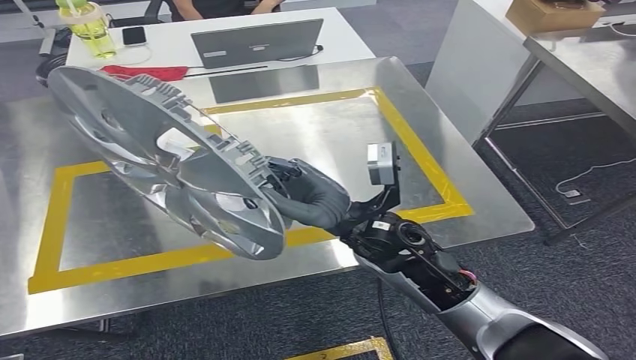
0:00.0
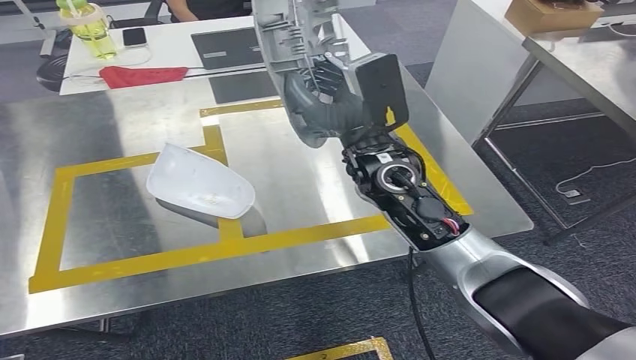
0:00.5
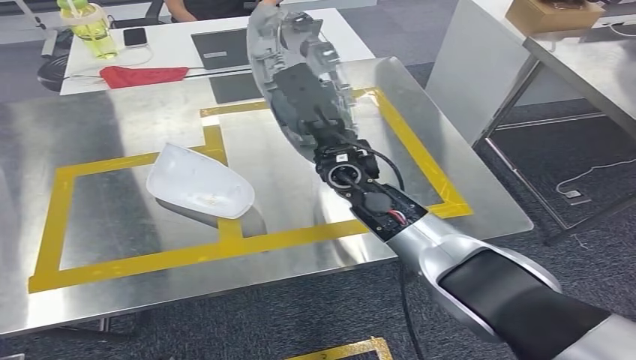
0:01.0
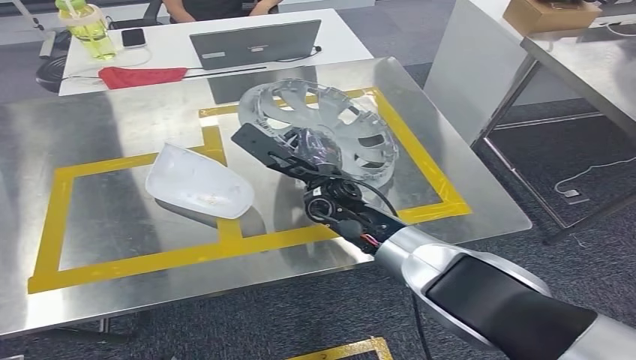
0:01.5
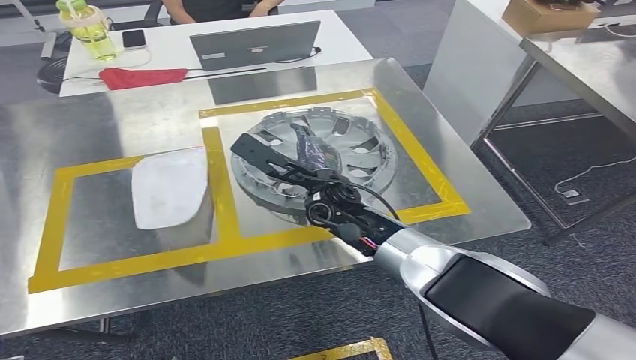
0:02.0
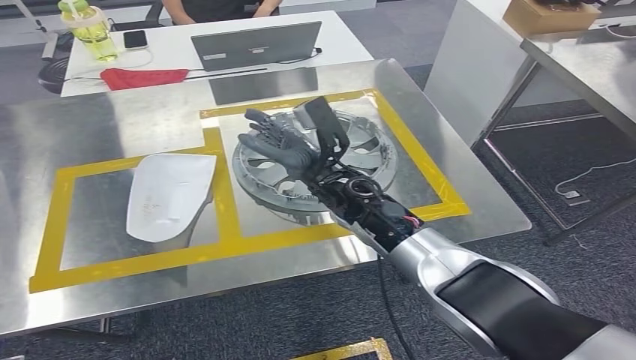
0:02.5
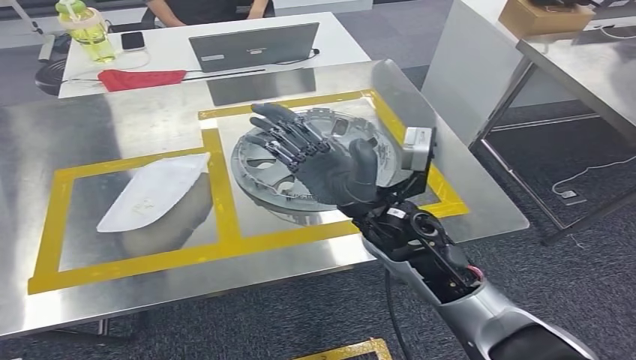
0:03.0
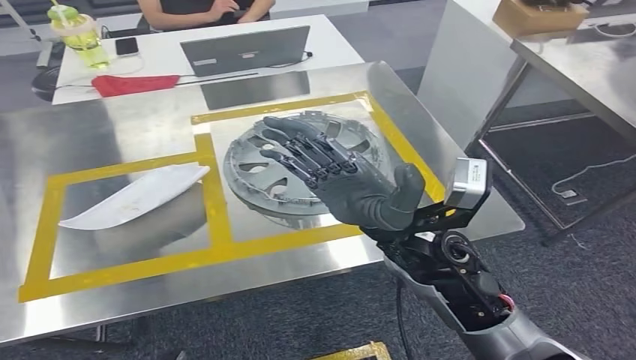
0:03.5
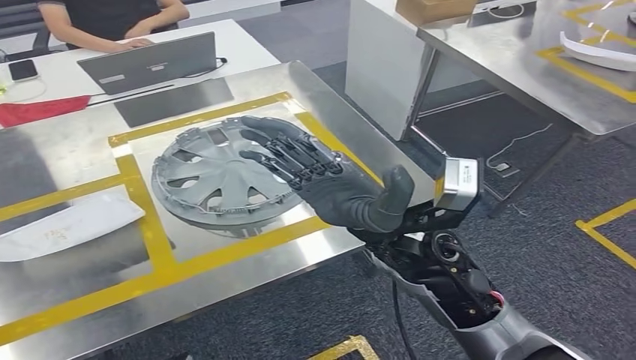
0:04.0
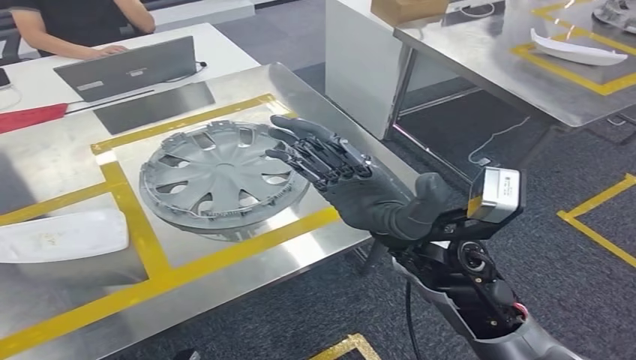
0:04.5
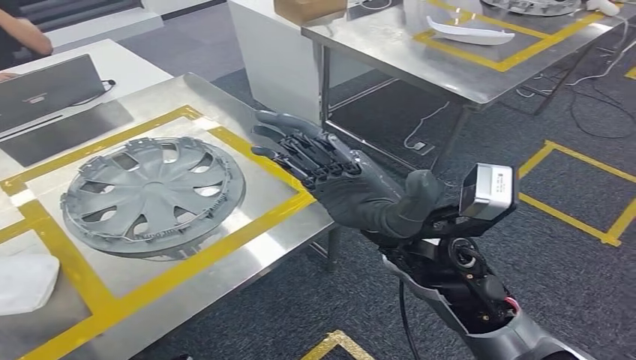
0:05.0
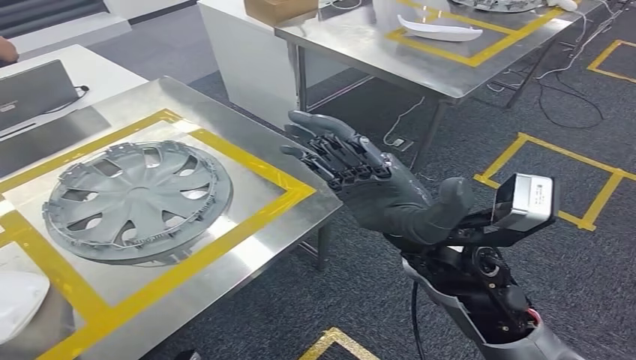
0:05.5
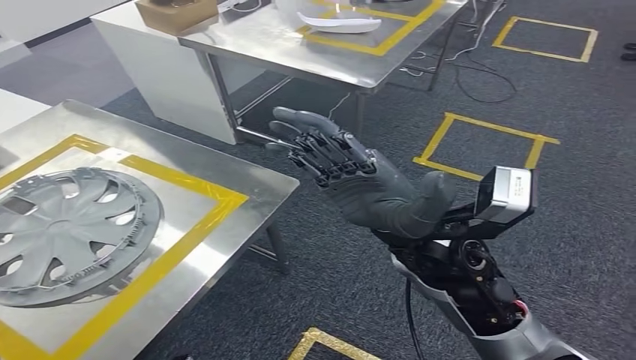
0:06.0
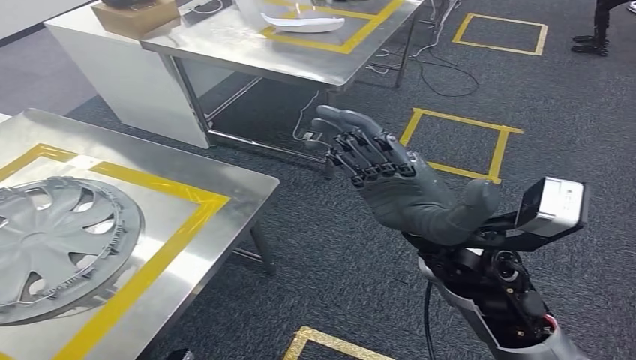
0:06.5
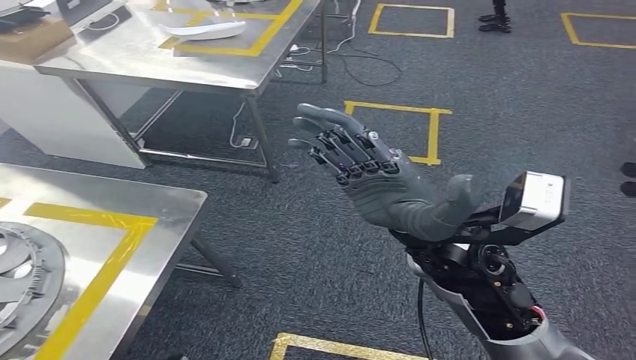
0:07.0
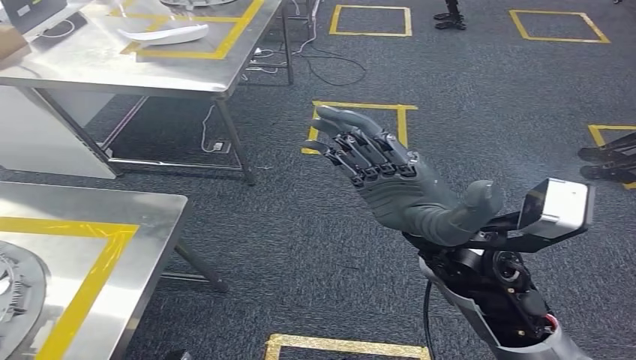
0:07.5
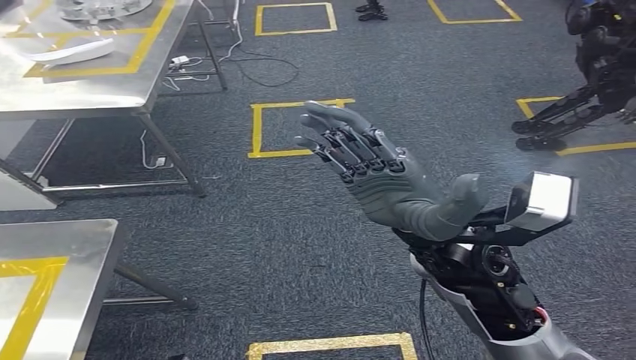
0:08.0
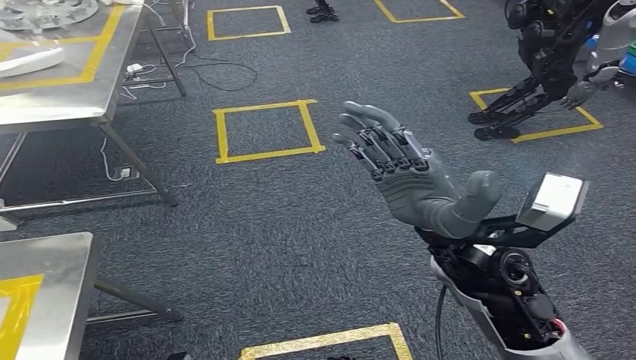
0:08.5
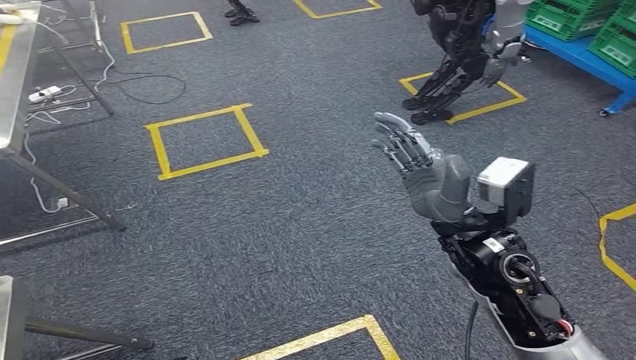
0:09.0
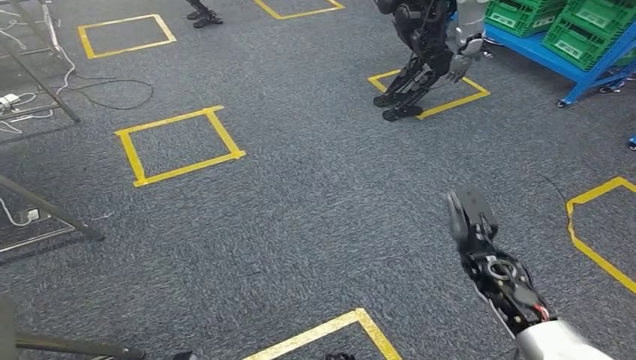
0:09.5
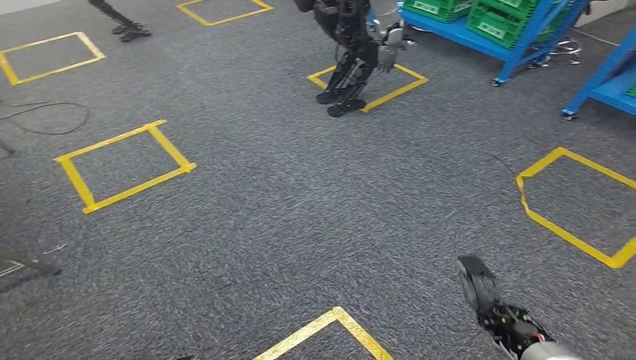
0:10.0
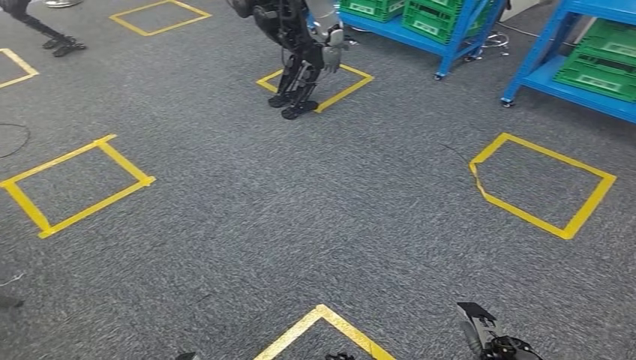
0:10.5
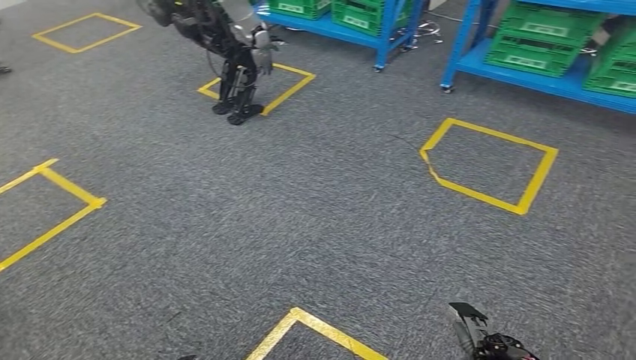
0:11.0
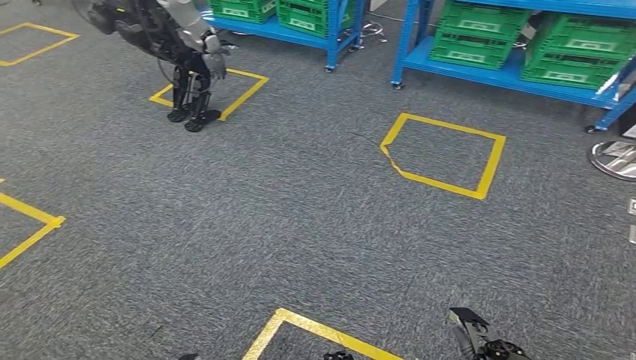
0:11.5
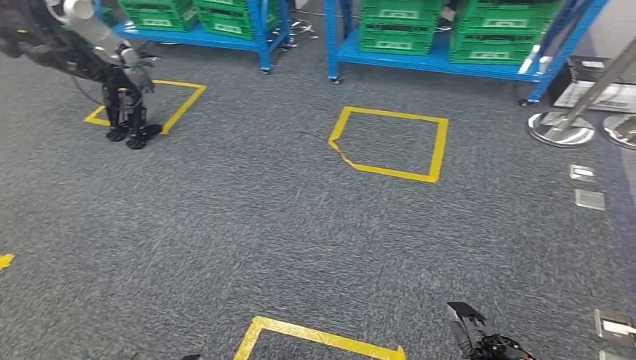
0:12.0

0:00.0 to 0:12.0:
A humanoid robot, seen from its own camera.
Step, 0:00.0 to 0:04.0: Insert the small component into the corresponding slot on the workbench.

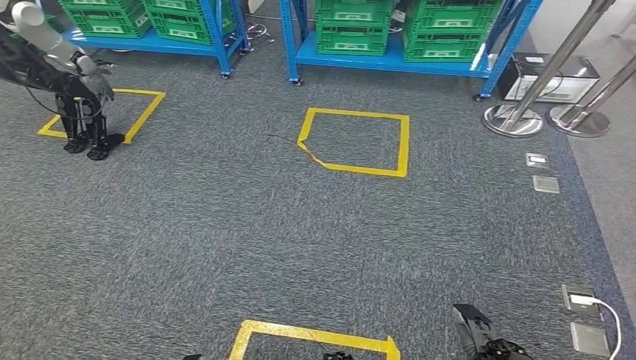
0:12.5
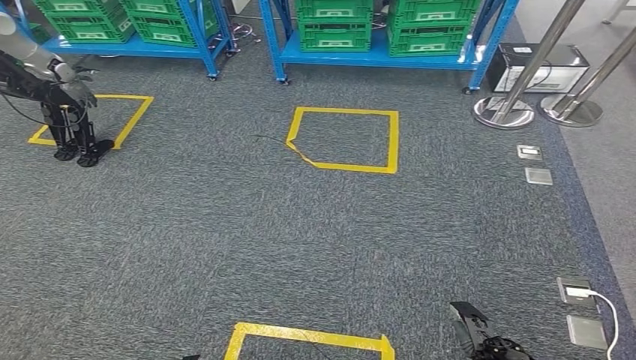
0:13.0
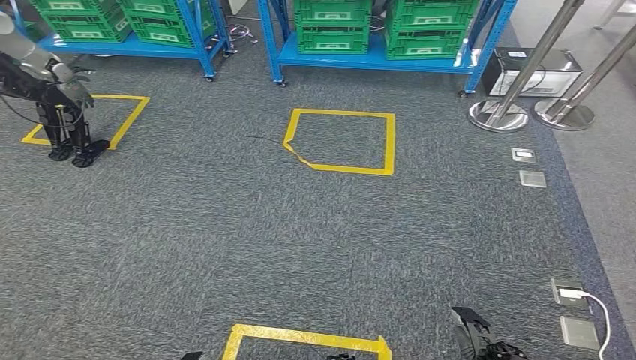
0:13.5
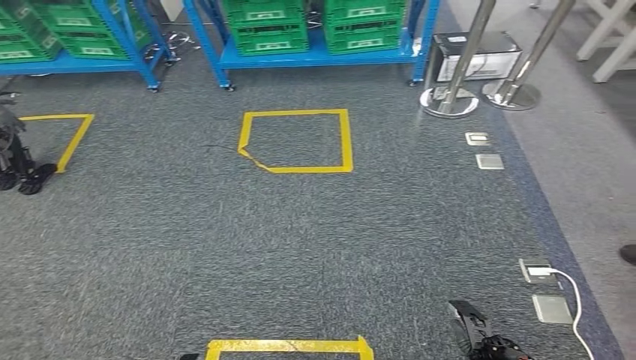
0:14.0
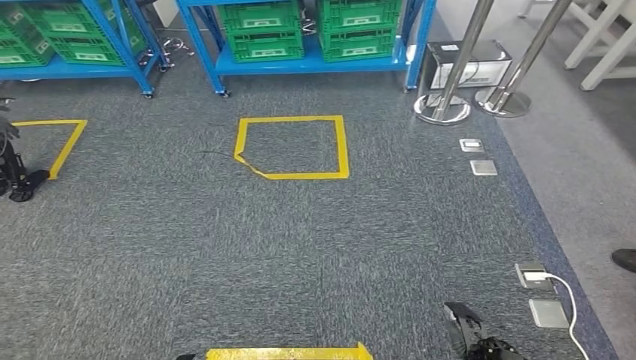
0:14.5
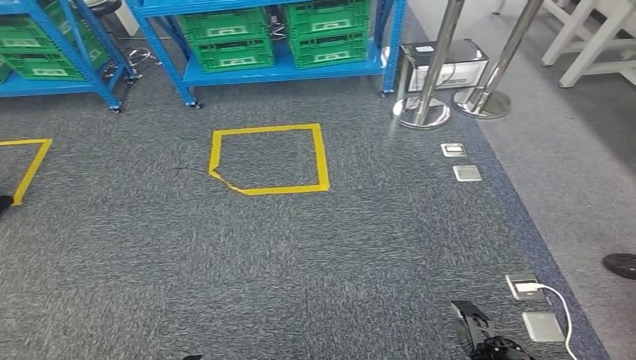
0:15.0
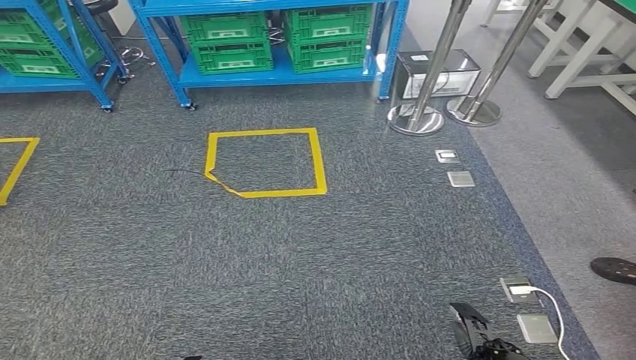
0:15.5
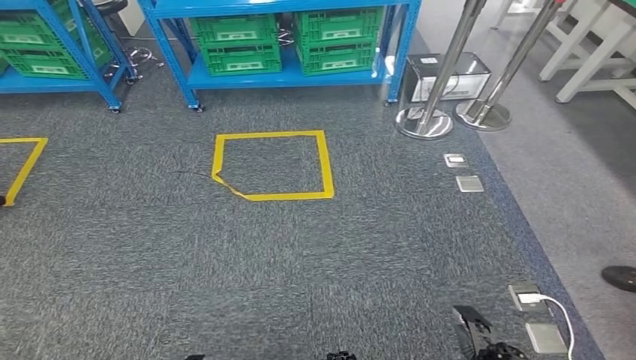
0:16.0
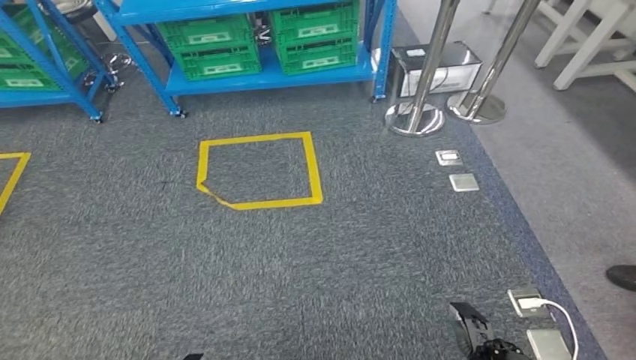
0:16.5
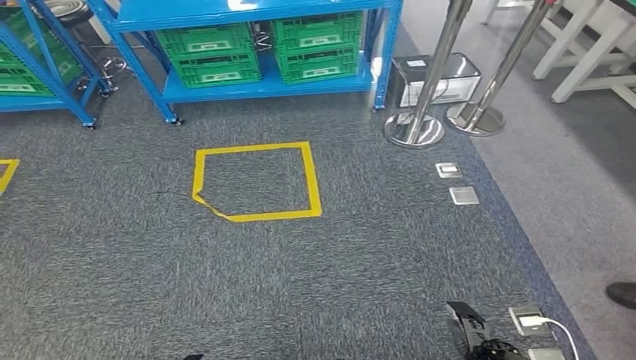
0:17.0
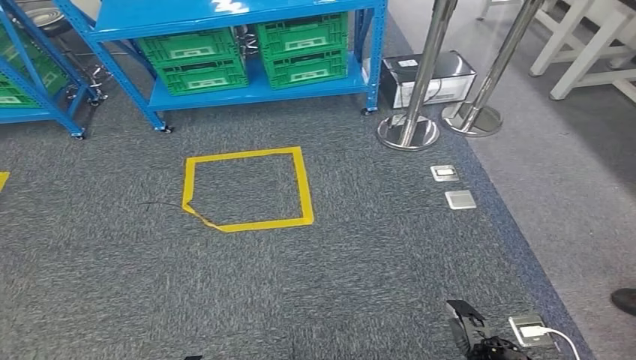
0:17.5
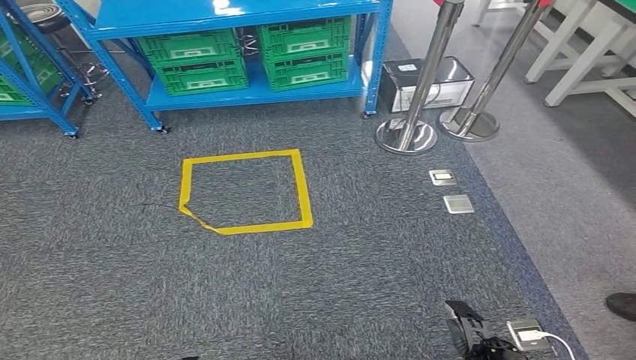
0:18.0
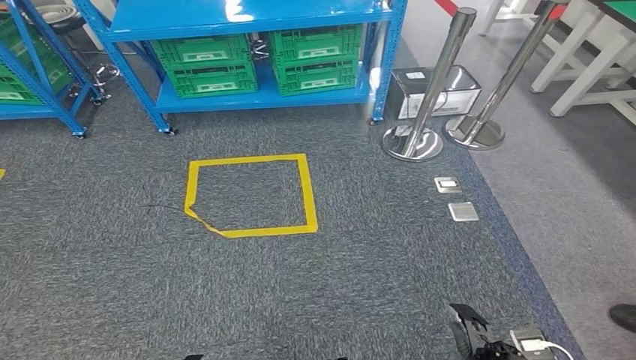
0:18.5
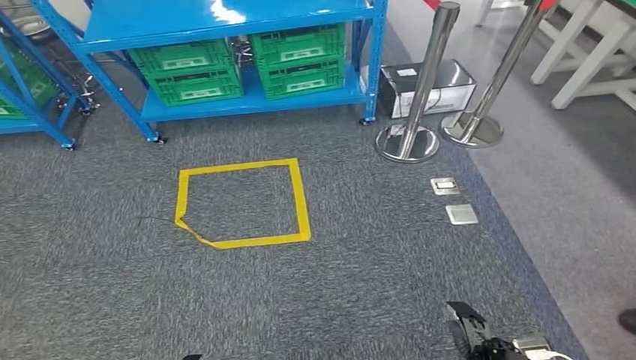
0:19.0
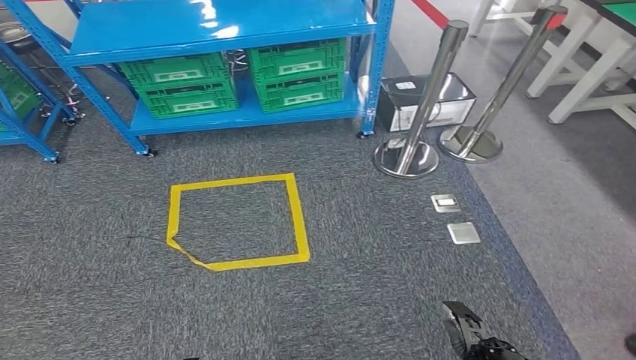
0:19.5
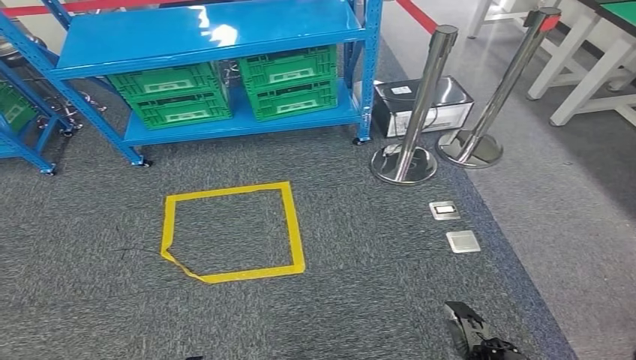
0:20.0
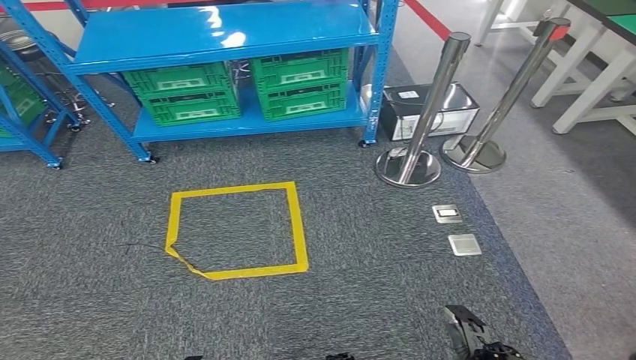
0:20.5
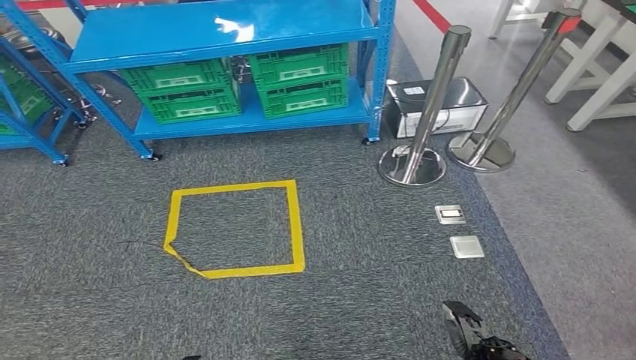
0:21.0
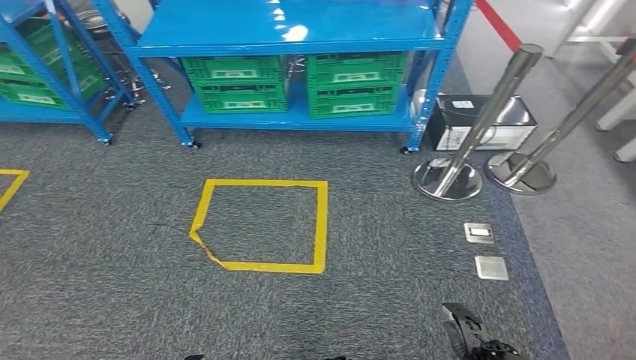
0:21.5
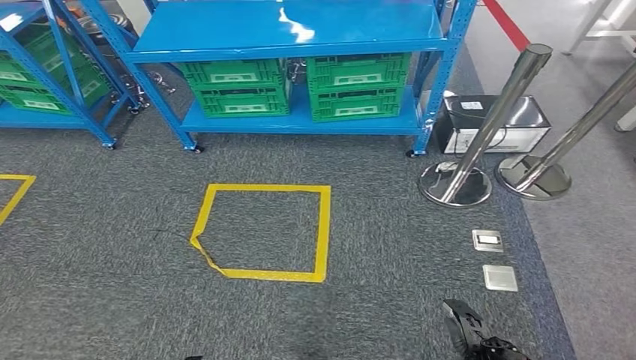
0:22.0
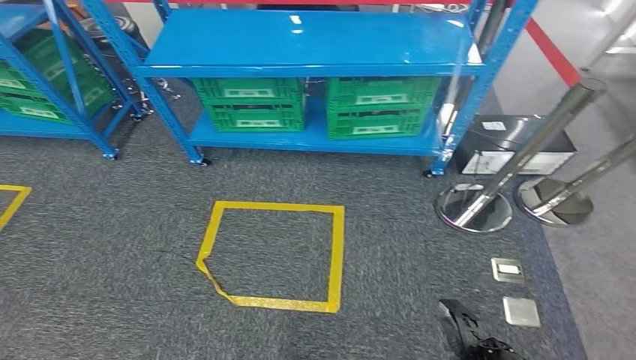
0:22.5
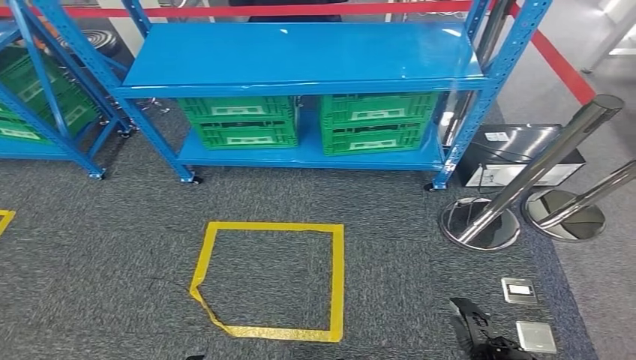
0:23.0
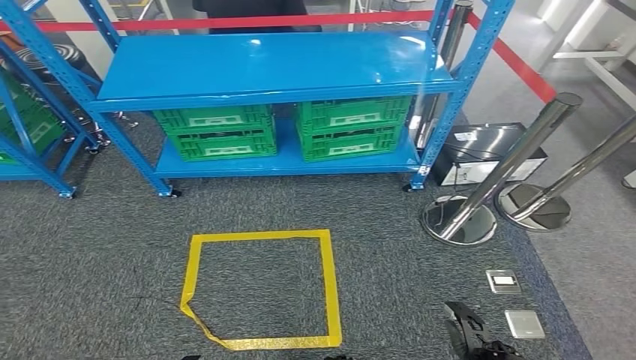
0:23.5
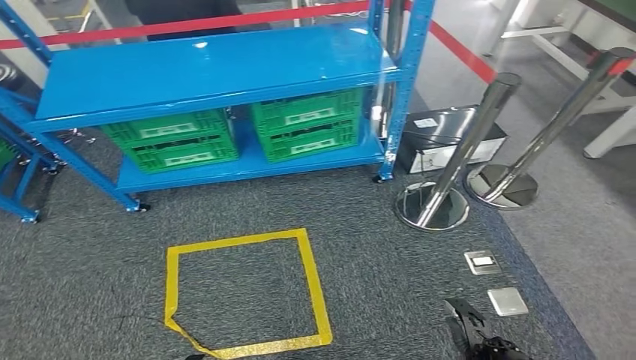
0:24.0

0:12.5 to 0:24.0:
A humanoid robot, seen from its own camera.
Step, 0:12.5 to 0:24.0: Return to the initial position at the workbench.
